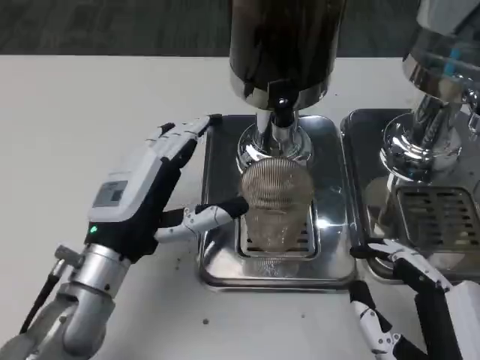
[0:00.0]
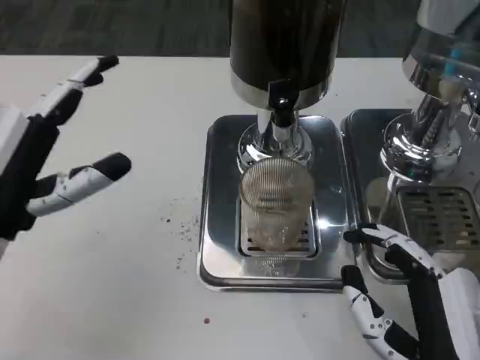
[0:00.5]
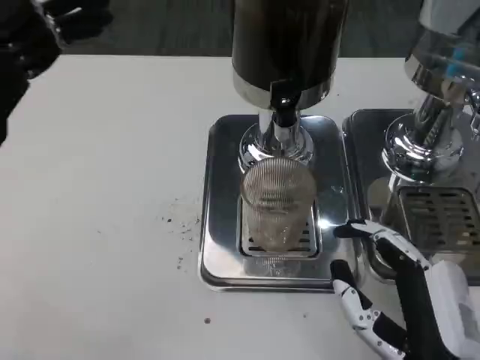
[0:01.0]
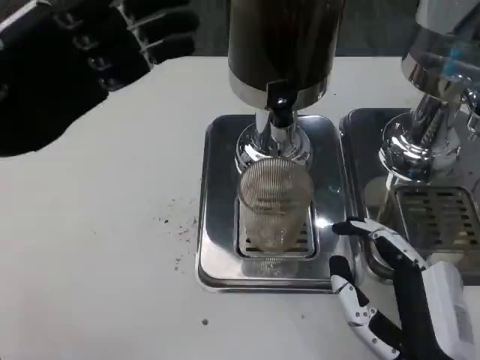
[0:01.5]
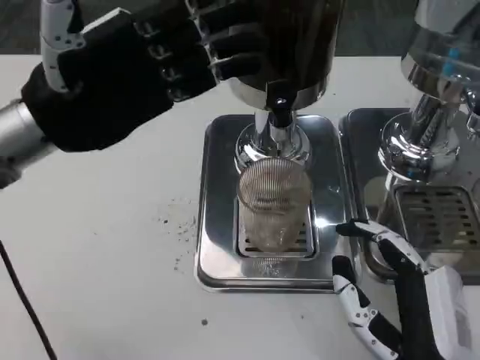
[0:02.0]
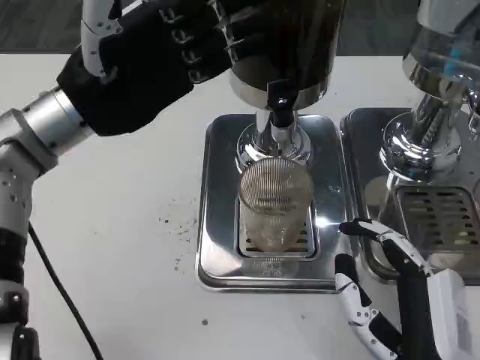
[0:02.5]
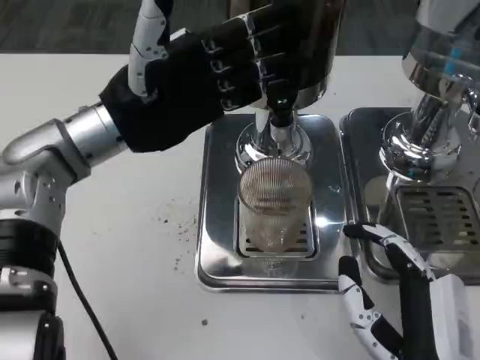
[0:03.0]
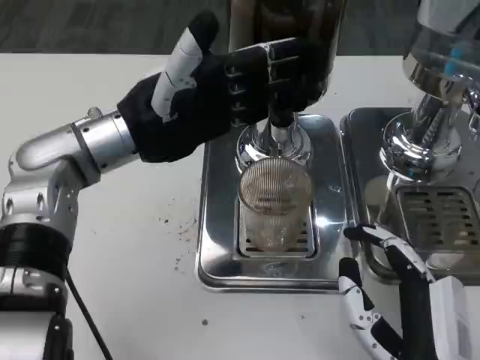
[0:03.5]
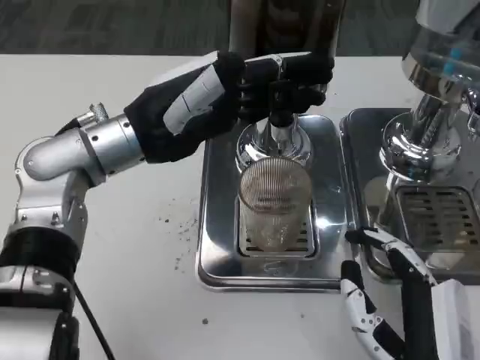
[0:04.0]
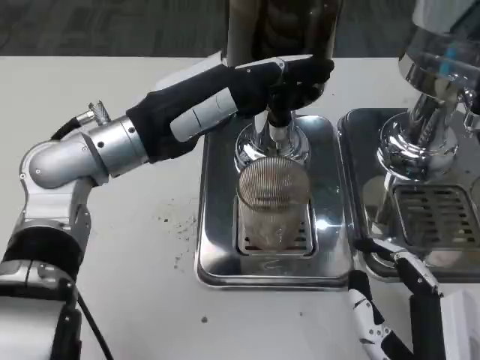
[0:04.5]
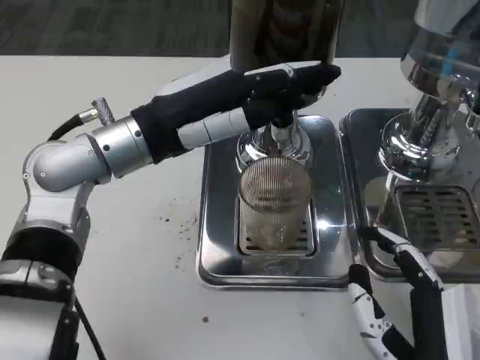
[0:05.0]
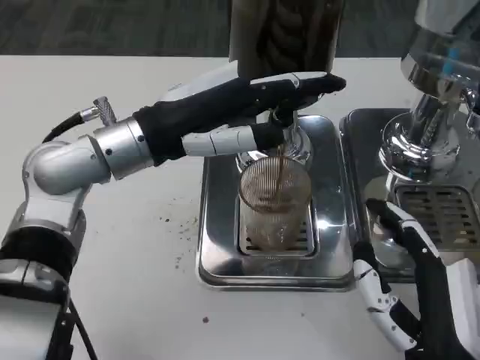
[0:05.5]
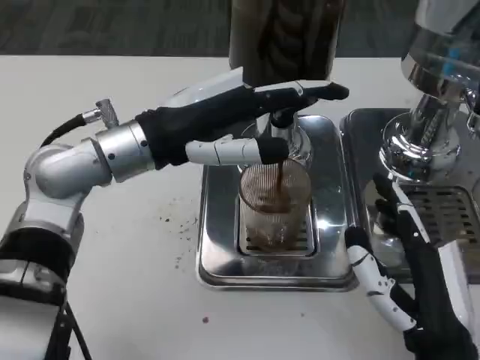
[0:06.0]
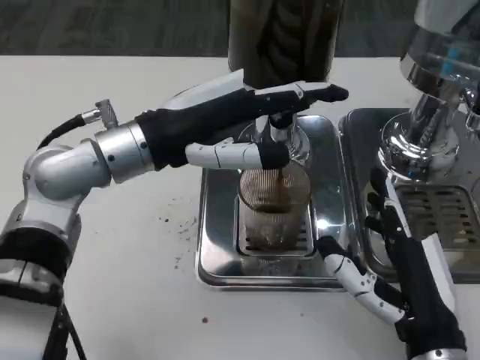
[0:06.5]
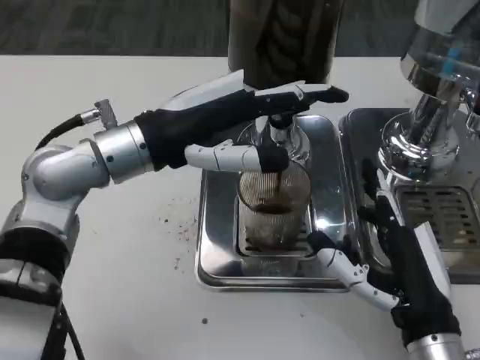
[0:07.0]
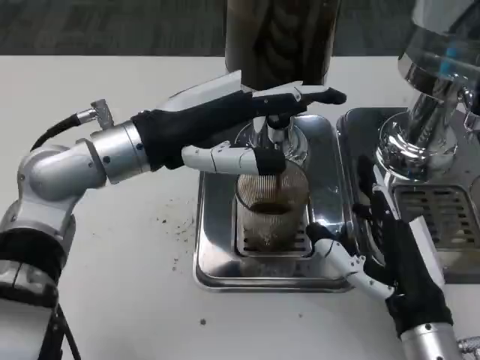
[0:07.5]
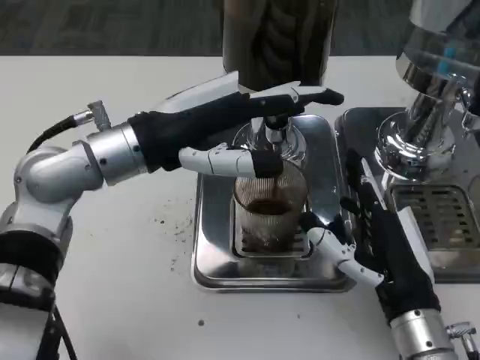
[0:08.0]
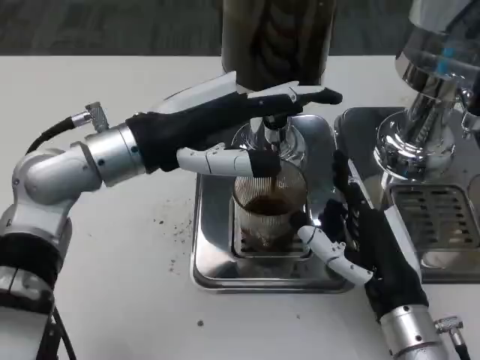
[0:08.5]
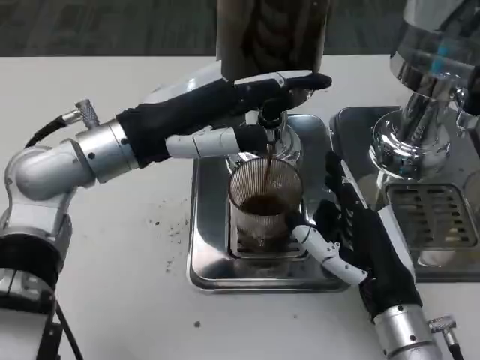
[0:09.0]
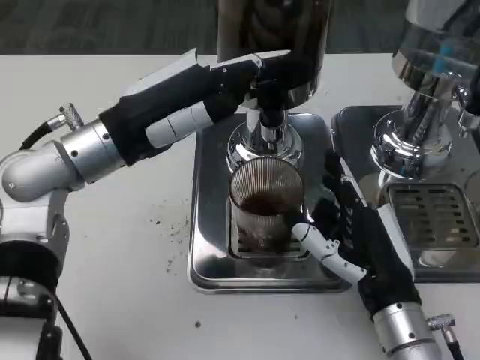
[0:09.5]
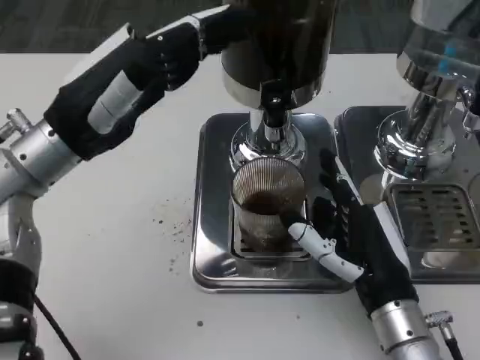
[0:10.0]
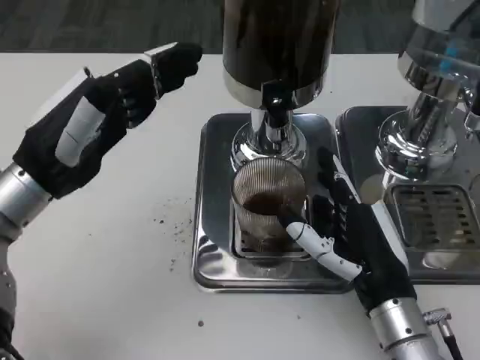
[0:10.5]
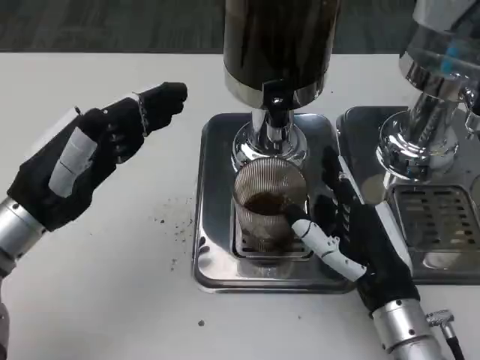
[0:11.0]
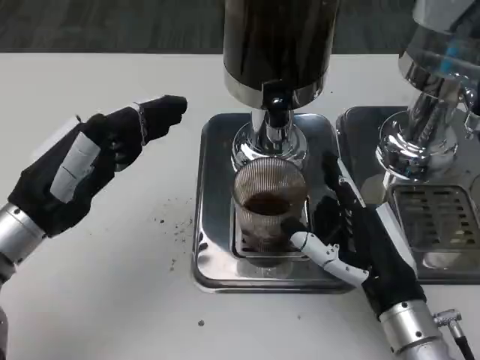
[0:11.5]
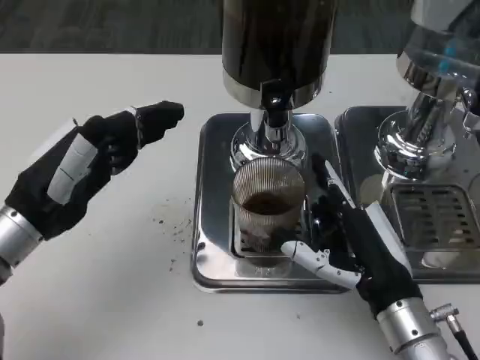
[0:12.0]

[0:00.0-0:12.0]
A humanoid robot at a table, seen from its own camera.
Task of the whole recording: Grasp the cup under the faucet to collect the drink, then remove the cup.
0:00.0 to 0:02.0: The left hand moves upward, forward and to the left, approximately 20 cm.
0:02.0 to 0:04.0: The left hand heads to the right, covering roughly 5 cm.
0:06.0 to 0:08.0: The right hand is displaced forward by approximately 5 cm.
0:08.0 to 0:10.0: The left hand is displaced to the left by approximately 5 cm.
0:10.0 to 0:12.0: The left hand heads downward, covering some 5 cm.

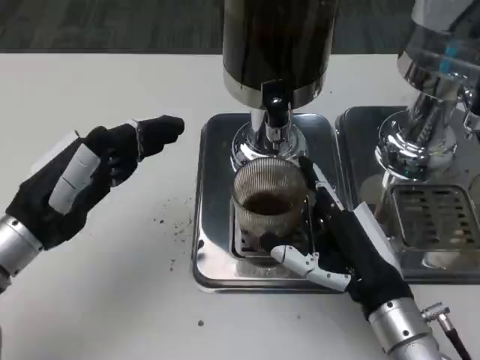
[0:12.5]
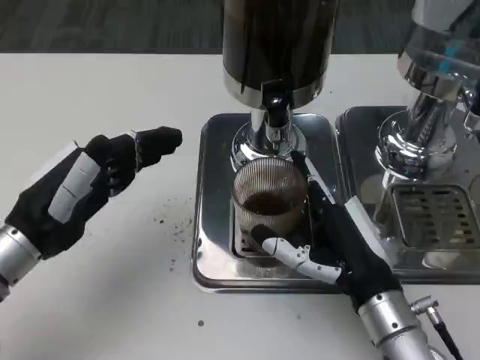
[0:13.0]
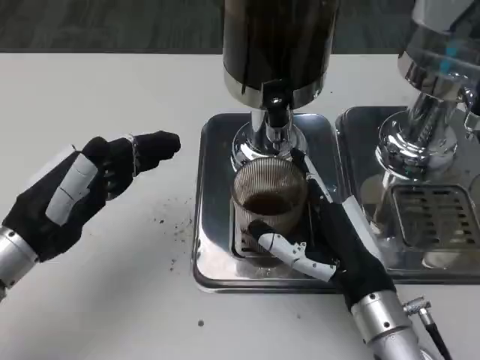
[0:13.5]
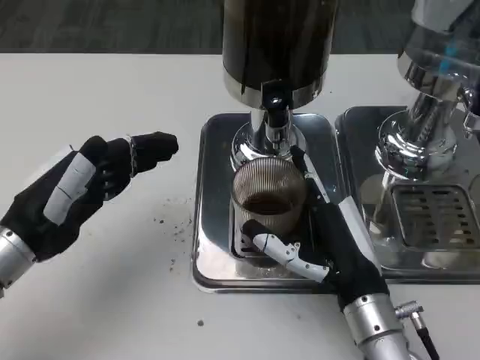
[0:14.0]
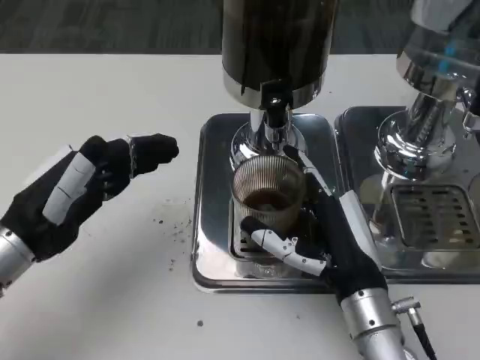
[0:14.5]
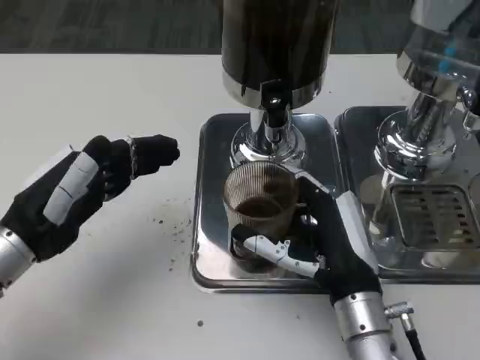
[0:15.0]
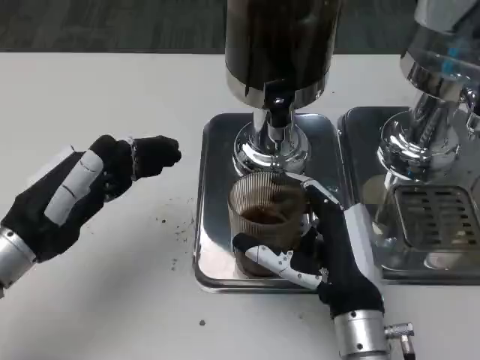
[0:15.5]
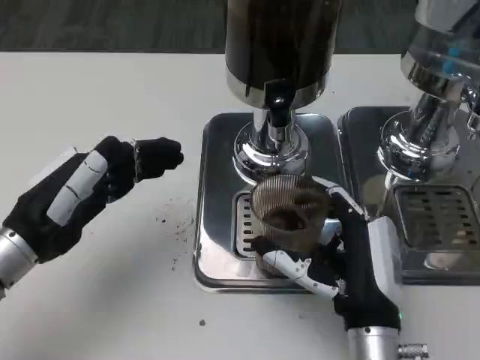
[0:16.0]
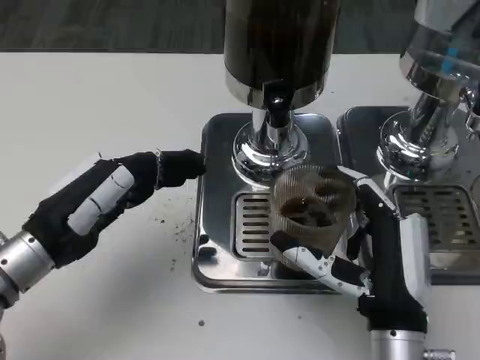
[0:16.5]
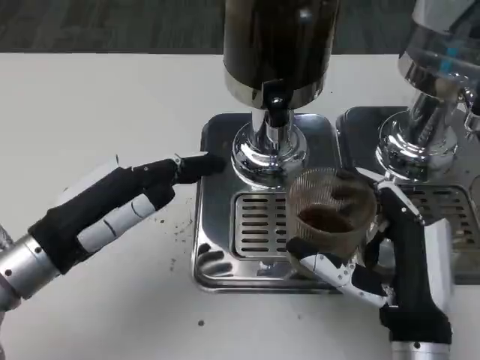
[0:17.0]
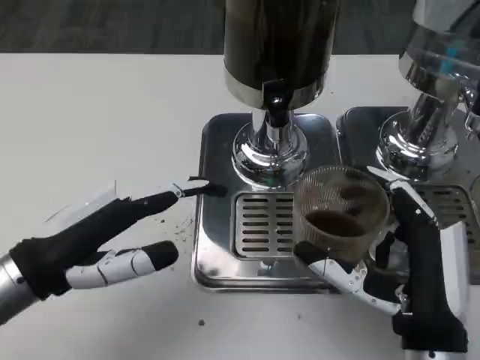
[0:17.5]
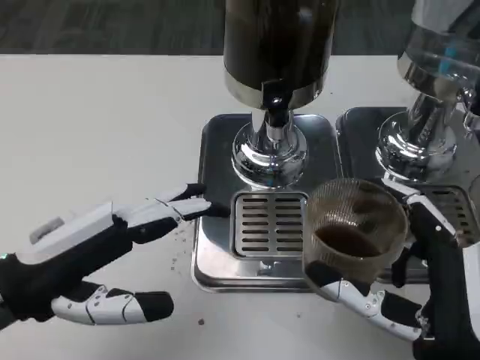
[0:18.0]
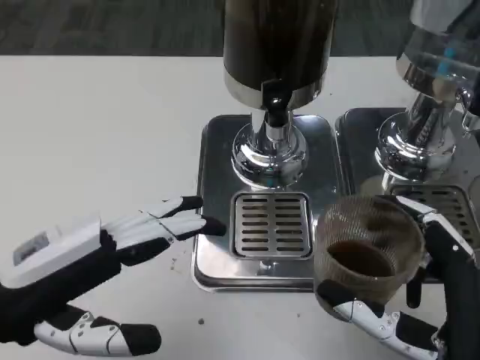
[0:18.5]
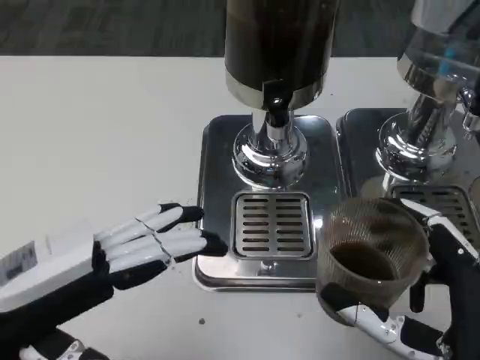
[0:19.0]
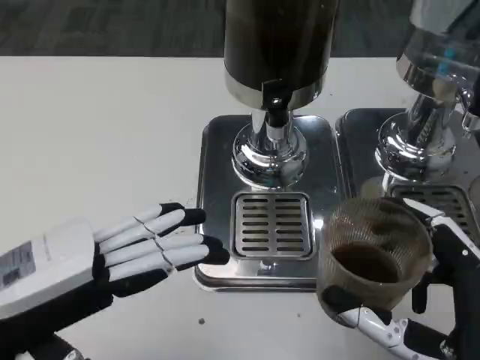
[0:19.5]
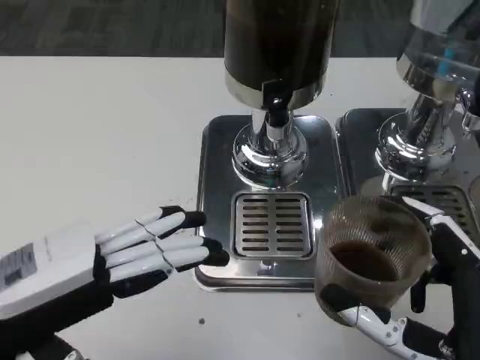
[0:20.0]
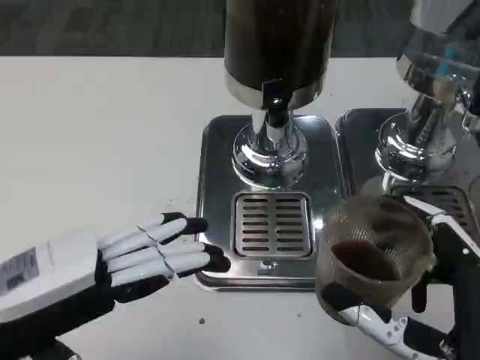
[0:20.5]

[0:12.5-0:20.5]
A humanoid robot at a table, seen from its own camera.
Task of the whole recording: Grasp the cup under the faucet to collect the drink, then remove the cup.
0:12.5 to 0:14.5: The hands stay close to where they were, moving slightly.
0:16.5 to 0:18.5: Both hands travel together backward, roughly 5 cm.
0:18.5 to 0:20.5: There are only small adjustments of the hands.

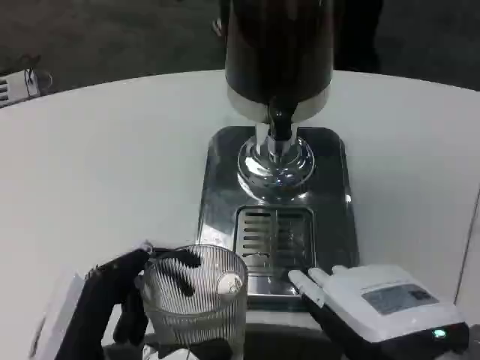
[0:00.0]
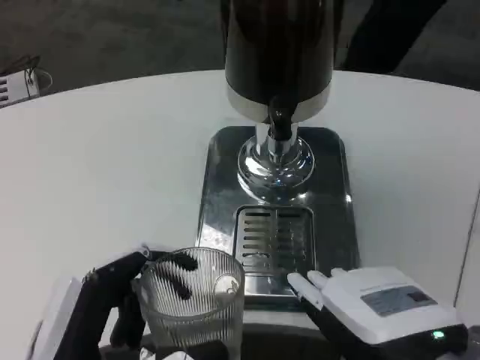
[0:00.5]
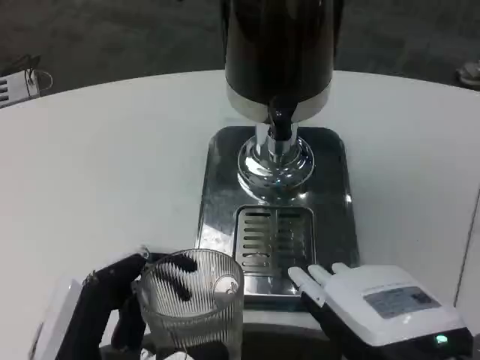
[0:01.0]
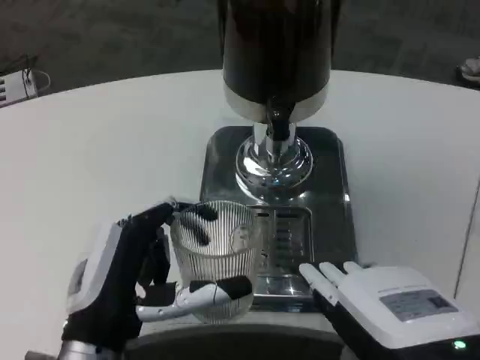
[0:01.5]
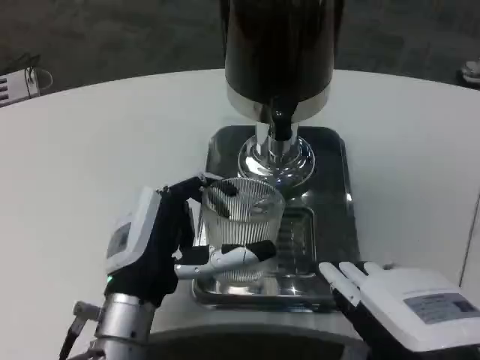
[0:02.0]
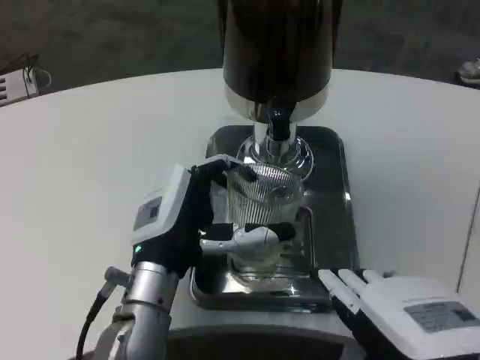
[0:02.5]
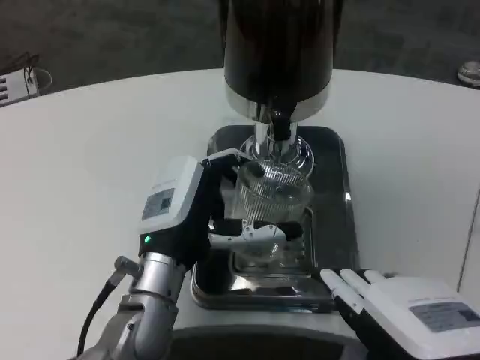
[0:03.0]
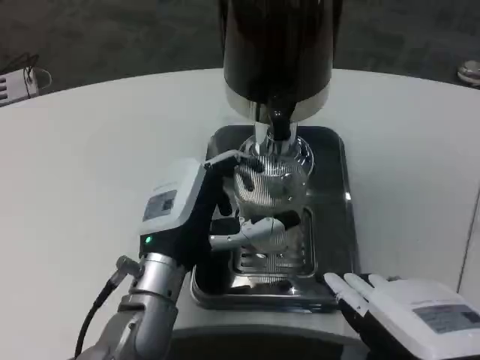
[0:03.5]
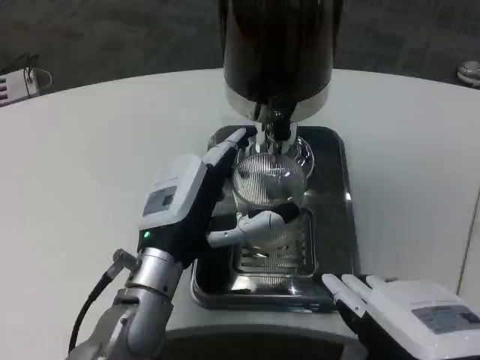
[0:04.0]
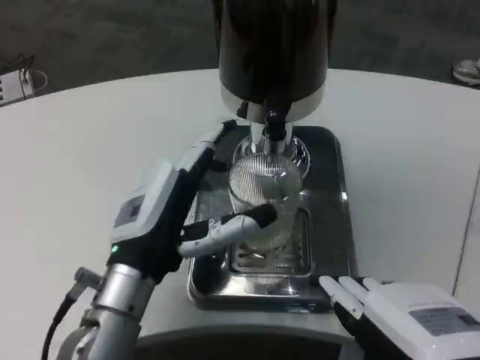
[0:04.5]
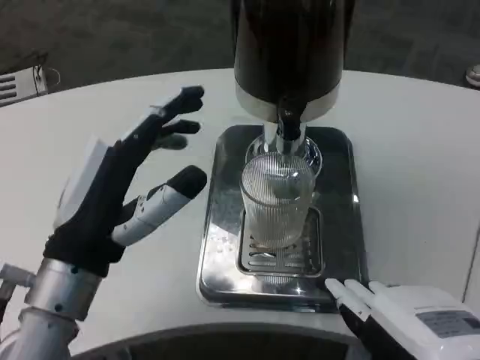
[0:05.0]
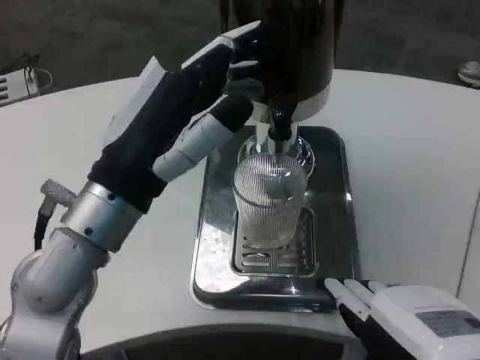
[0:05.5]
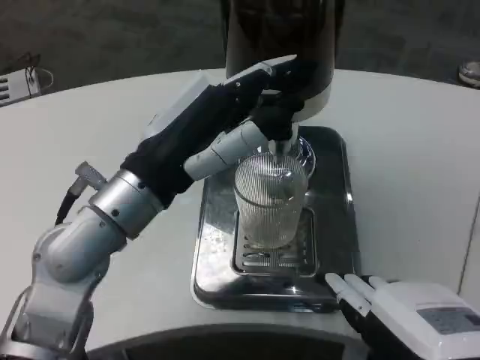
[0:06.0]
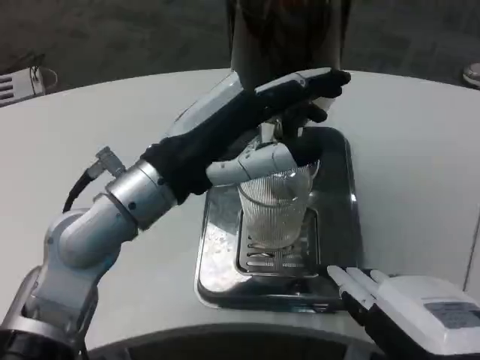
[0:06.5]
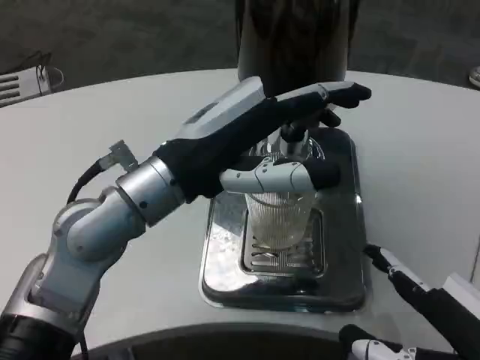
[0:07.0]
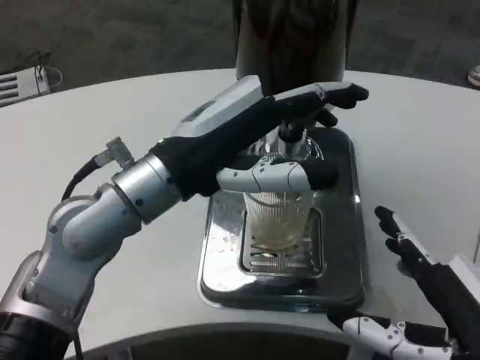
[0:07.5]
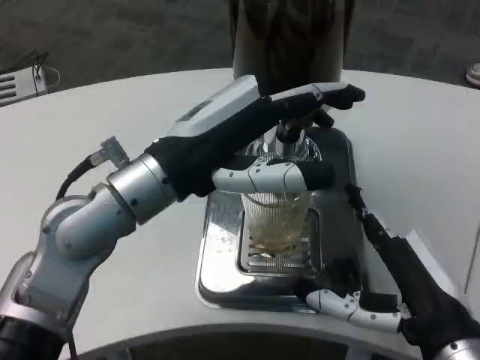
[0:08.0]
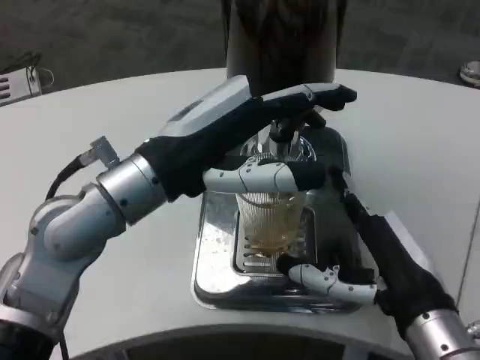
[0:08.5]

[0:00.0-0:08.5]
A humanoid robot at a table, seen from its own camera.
Task of the whole recording: Grasp the cup under the faucet to collect the drink, then remove the cup.
0:00.0 to 0:02.0: The left hand goes some 10 cm forward.
0:02.0 to 0:04.0: The hands stay close to where they were, moving slightly.
0:04.0 to 0:06.5: The left hand goes roughly 10 cm upward.
0:06.5 to 0:08.5: The right hand shifts approximately 15 cm forward and downward.
